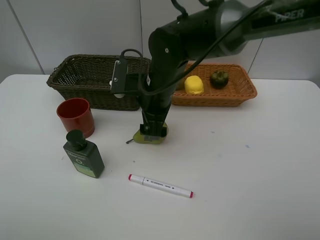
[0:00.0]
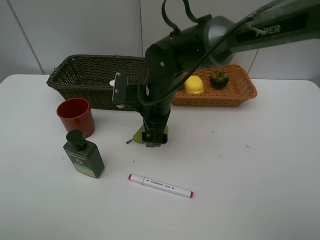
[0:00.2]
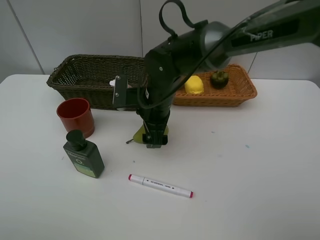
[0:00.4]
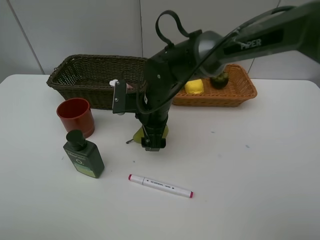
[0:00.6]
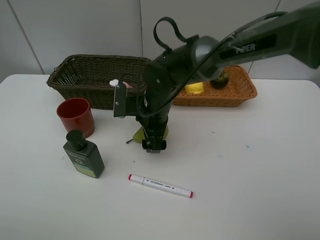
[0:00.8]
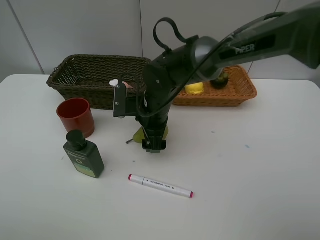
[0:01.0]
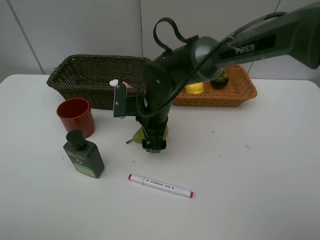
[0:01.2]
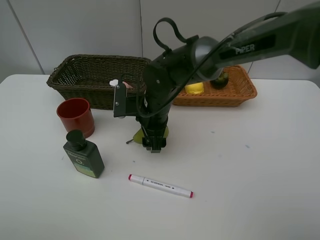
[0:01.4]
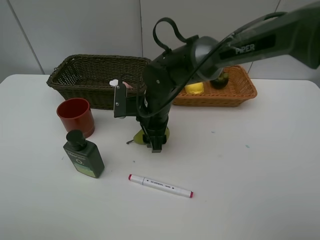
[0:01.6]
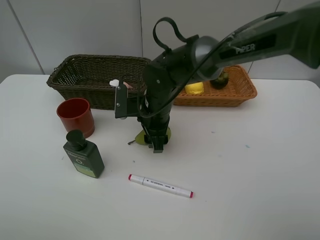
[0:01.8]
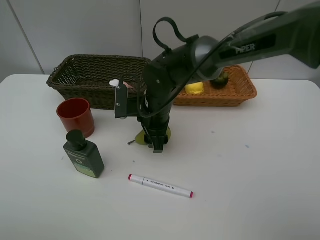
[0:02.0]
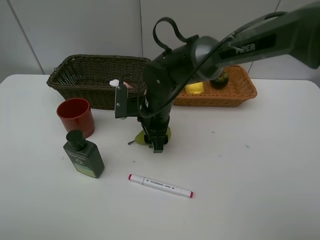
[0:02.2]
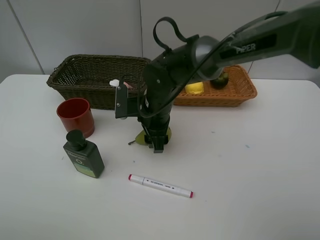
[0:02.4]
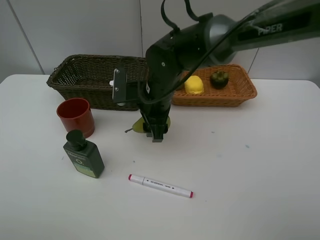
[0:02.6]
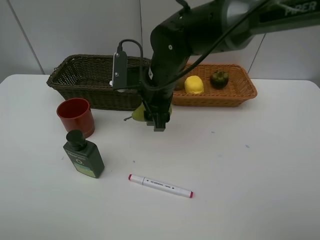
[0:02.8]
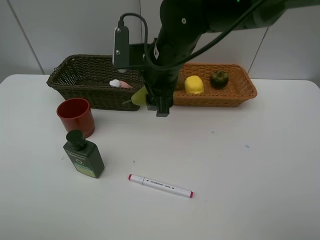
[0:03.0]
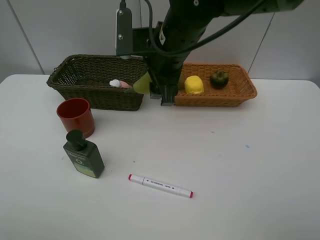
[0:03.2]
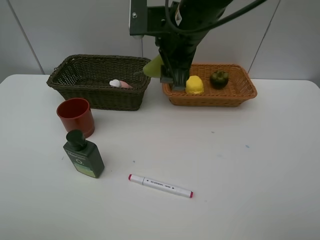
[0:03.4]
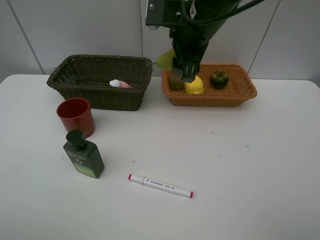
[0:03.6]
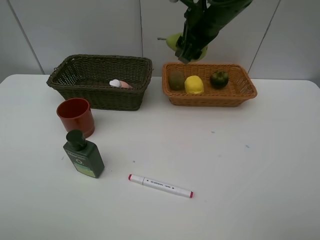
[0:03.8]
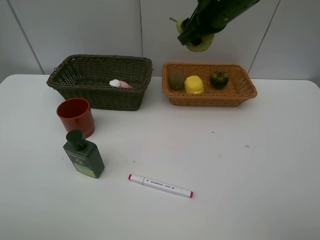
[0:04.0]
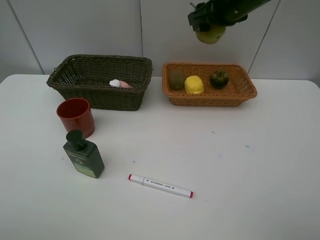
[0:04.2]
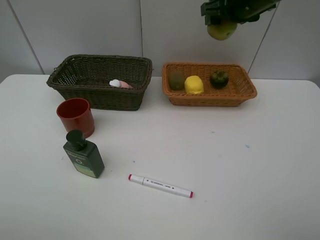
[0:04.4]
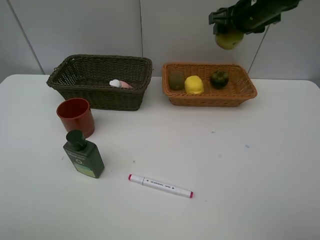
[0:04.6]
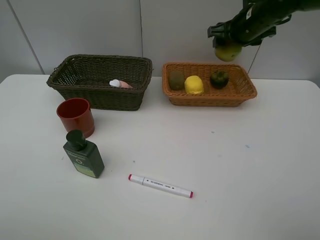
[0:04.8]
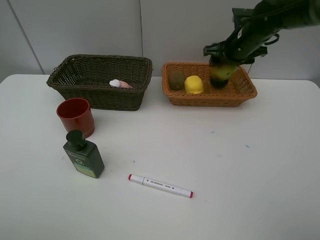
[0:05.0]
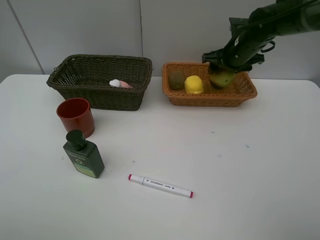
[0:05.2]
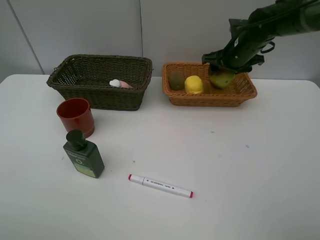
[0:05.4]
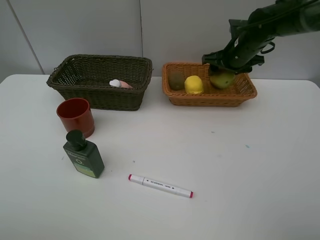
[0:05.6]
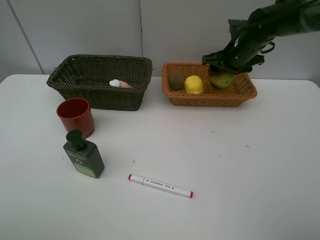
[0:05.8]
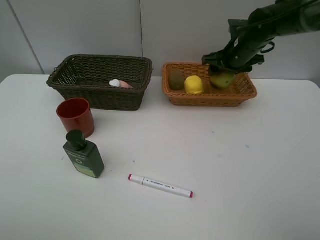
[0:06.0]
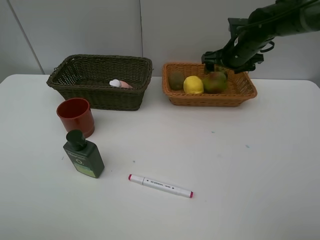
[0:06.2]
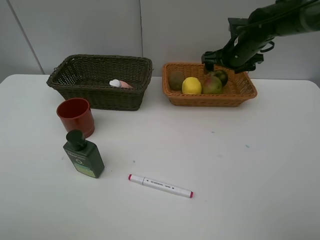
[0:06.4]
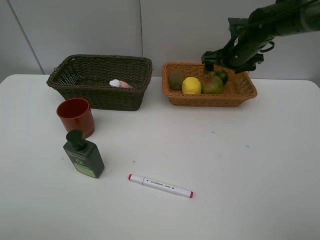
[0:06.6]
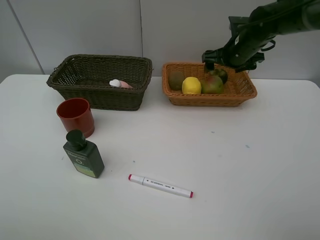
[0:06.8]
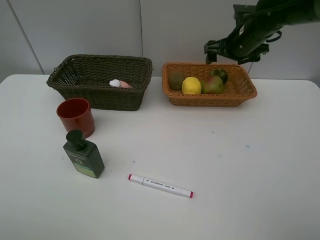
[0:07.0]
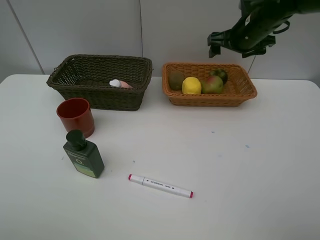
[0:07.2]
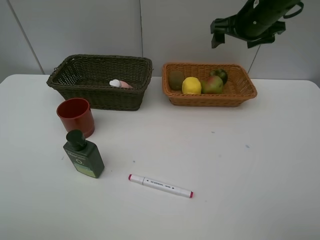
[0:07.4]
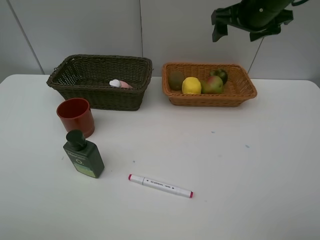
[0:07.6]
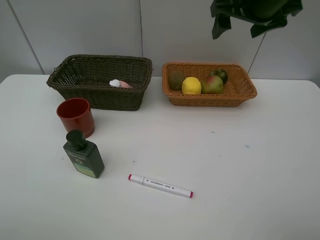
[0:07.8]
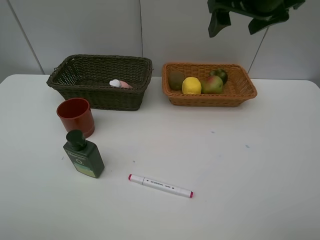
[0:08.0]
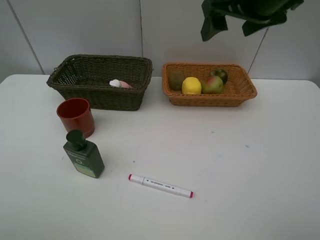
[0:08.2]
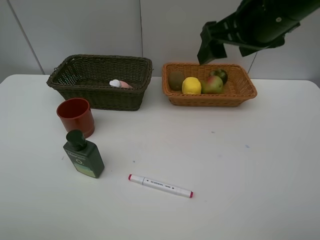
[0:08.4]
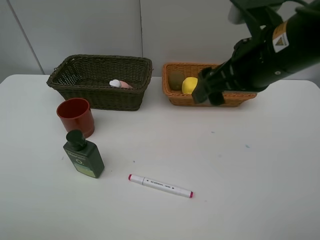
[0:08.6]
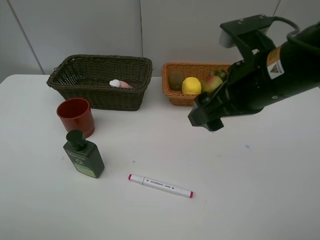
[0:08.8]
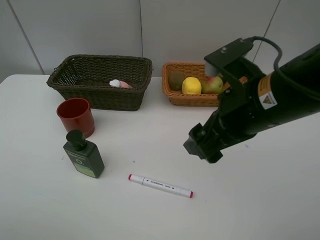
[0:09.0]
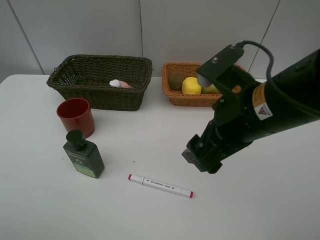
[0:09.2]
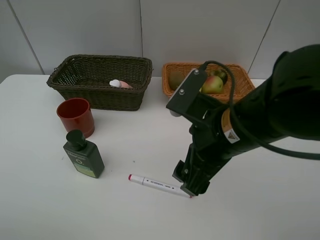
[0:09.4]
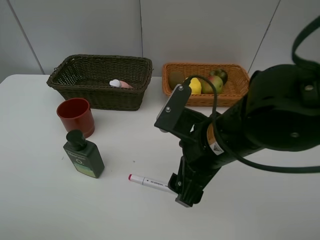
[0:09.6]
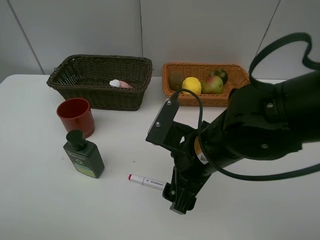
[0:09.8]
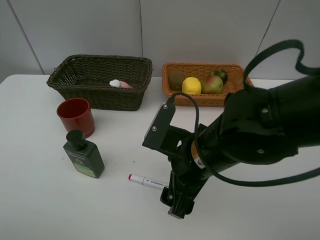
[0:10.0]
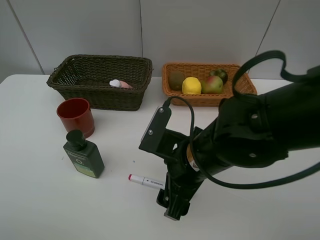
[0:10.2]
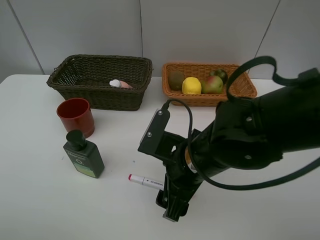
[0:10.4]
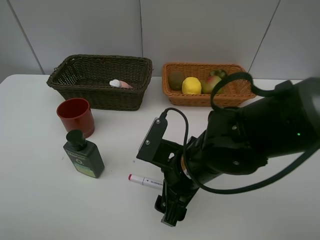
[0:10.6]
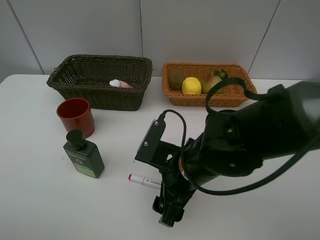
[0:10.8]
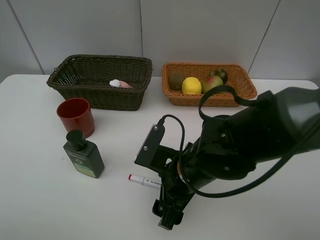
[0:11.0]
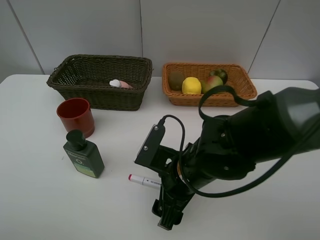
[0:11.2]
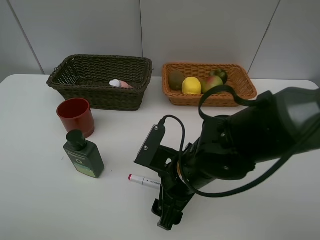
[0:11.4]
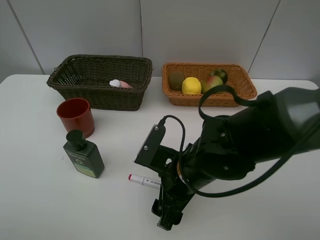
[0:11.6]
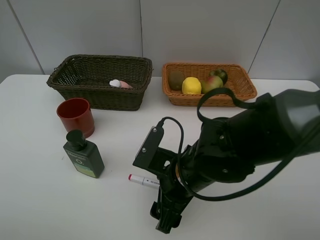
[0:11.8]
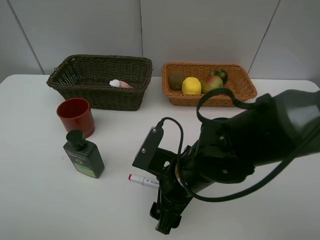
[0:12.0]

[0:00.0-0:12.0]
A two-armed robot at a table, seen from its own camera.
Task of the whole recording: Place multiple objects separately in different baskets.
Step, 0:00.0 to 0:02.6: Pick up the pear with right gripper.
Step, 0:02.8 to 0:06.8: Place the pear in the light basket with right gripper.
0:00.0 to 0:01.6: The right gripper heads downward, covering approximately 5 cm.
0:01.6 to 0:03.0: The right gripper moves upward, about 10 cm.
0:03.0 to 0:04.4: The right gripper moves to the right, forward and upward, roughly 20 cm.
0:04.4 to 0:06.0: The right gripper travels downward by approximately 10 cm.
0:06.0 to 0:07.6: The right gripper travels upward and backward by approximately 15 cm.
0:07.6 to 0:09.0: The right gripper moves backward, roughly 20 cm.
0:09.0 to 0:10.4: The right gripper moves downward and to the left, some 15 cm.
0:10.4 to 0:12.0: The grippers move only a little.

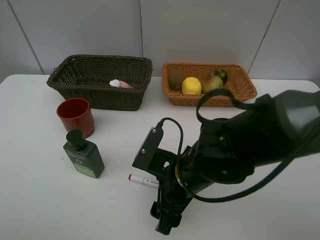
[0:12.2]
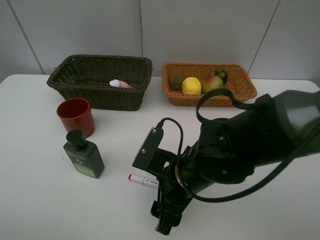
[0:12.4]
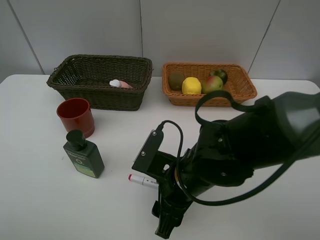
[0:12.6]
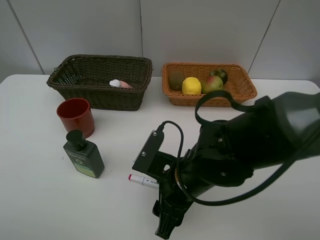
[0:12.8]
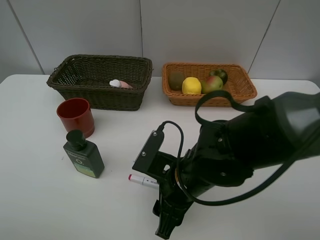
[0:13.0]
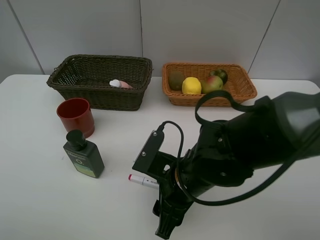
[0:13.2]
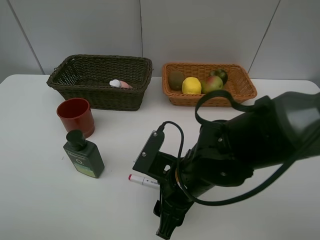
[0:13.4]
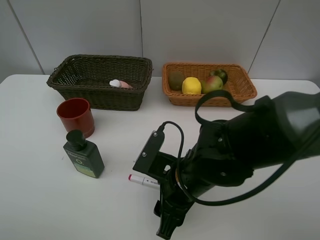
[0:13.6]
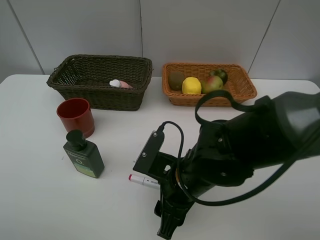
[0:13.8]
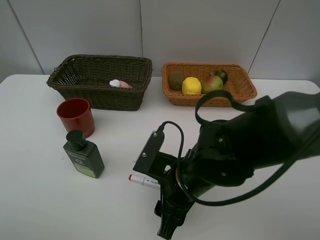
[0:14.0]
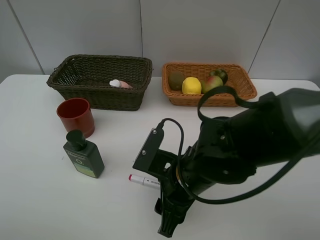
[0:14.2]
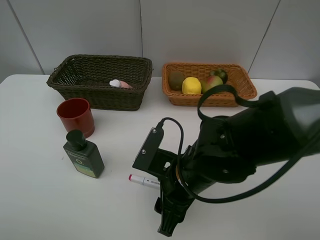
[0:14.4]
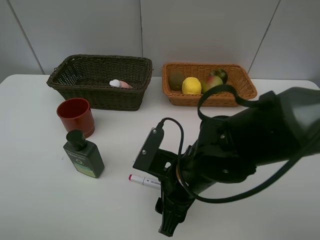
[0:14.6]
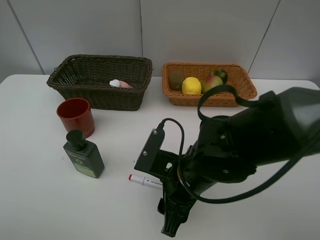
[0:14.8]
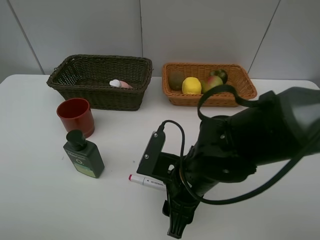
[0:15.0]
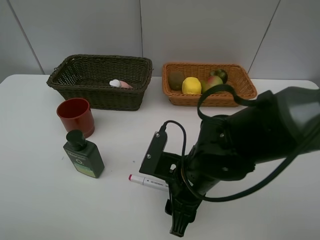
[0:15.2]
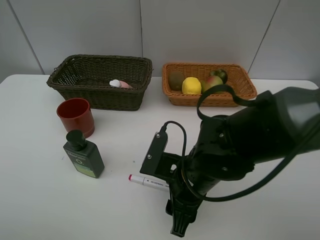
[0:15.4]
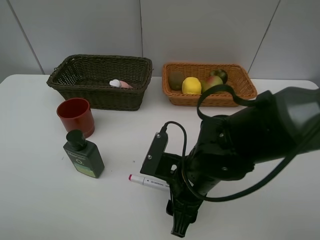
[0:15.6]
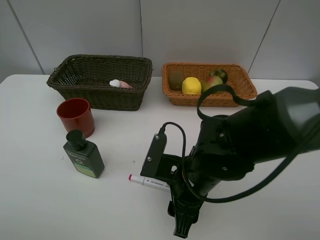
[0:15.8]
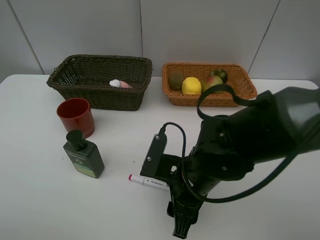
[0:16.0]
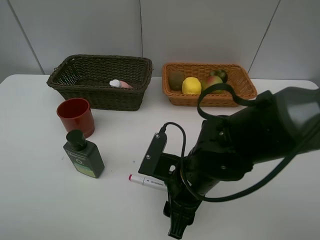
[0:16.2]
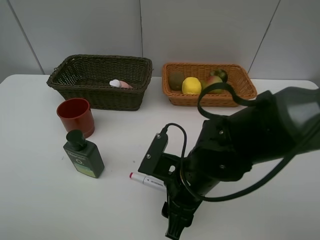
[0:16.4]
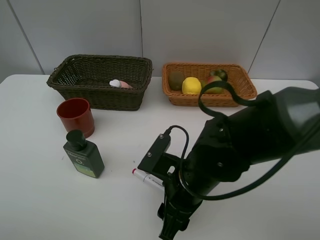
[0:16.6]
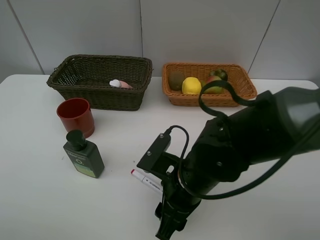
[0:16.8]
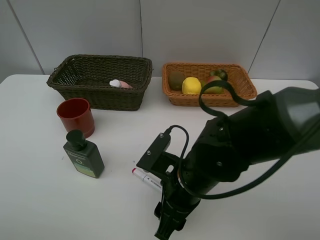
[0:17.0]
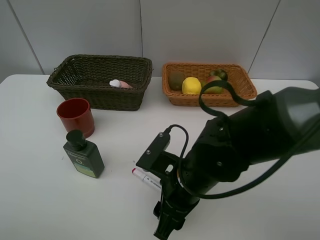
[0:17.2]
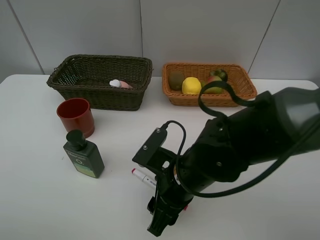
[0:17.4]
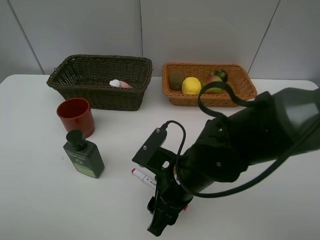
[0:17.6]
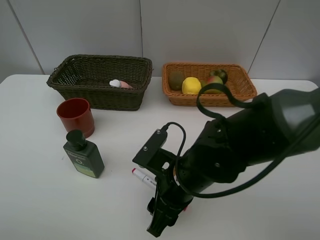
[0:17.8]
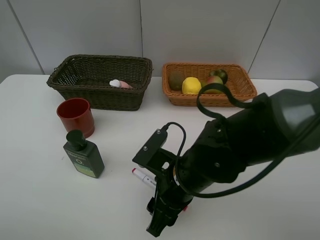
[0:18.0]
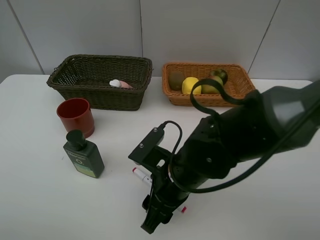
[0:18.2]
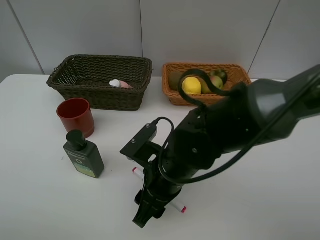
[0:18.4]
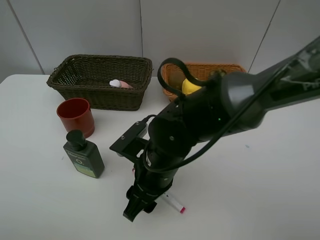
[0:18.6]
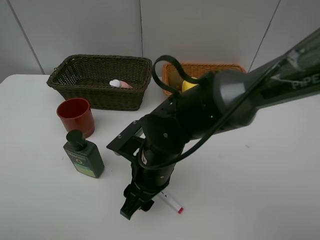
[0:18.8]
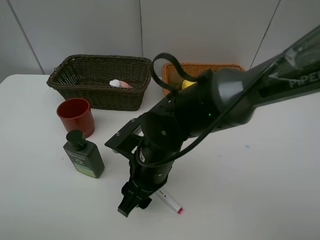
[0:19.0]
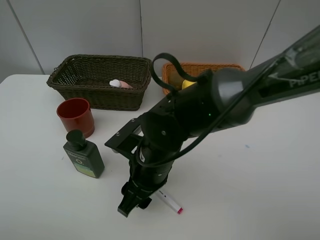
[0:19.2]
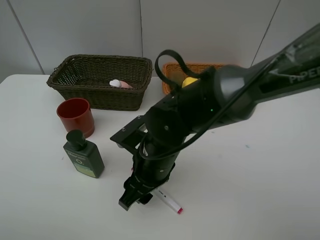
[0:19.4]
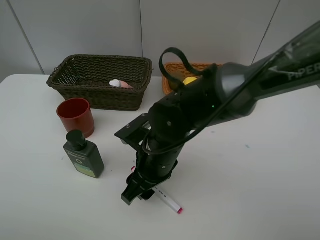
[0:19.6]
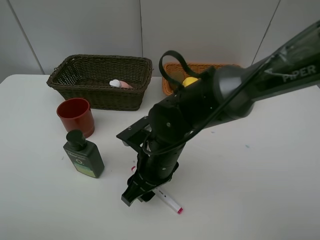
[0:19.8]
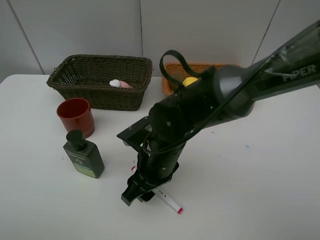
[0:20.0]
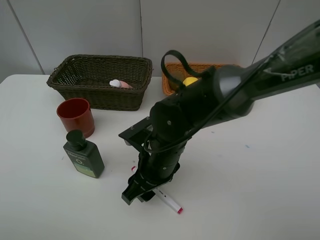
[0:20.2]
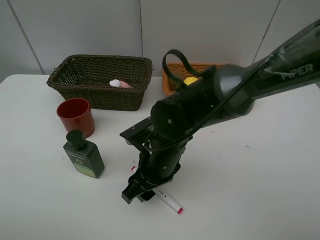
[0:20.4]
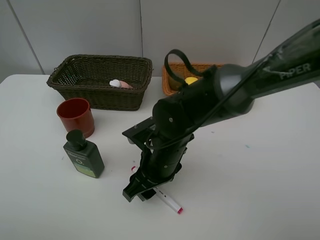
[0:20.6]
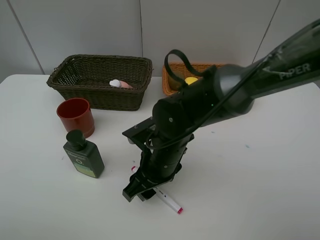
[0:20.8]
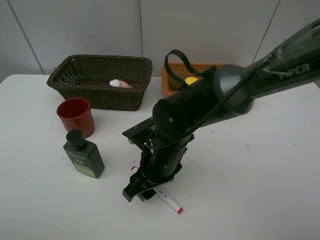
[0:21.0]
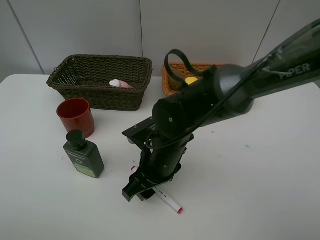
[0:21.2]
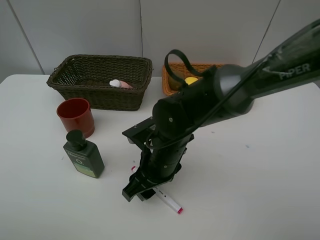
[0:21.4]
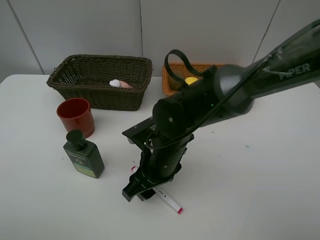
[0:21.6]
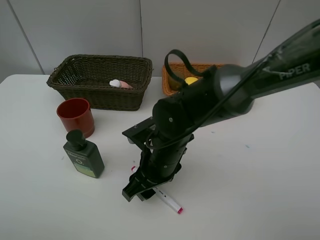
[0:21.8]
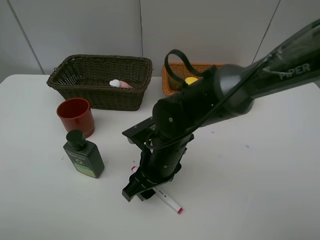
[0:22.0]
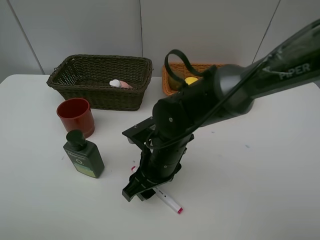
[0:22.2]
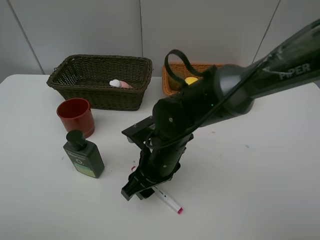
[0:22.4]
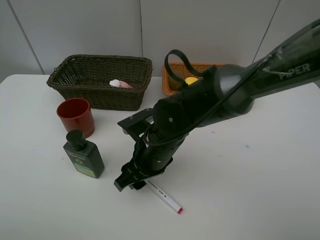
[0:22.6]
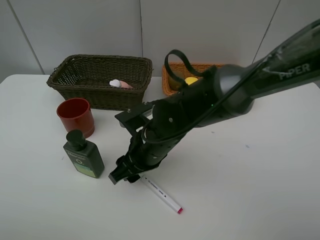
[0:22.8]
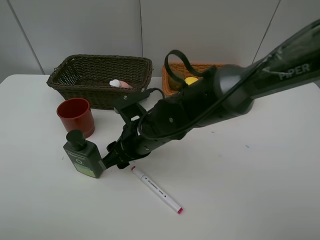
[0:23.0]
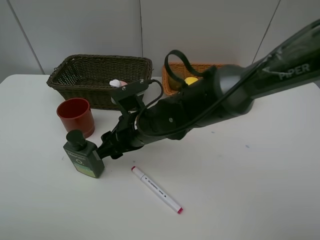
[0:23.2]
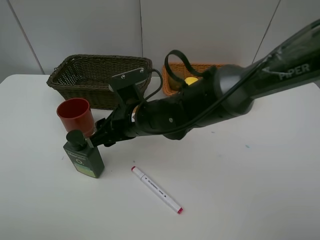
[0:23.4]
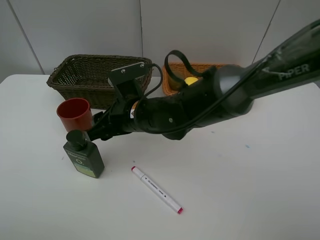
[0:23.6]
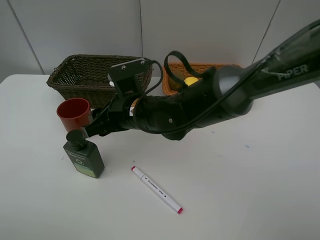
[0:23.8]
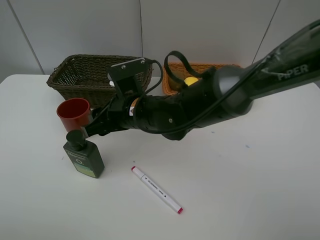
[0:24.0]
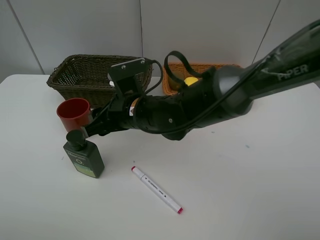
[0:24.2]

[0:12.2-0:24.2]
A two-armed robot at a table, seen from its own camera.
Task of the whole recording: Place multiple objects separately in different baskets.
0:12.2 to 0:13.8: Both grippers stay put.
0:13.8 to 0:18.2: There are only small adjustments of the grippers.
0:19.8 to 0:22.6: The grippers make only small movements.
0:22.6 to 0:24.2: The right gripper moves roughly 5 cm.
